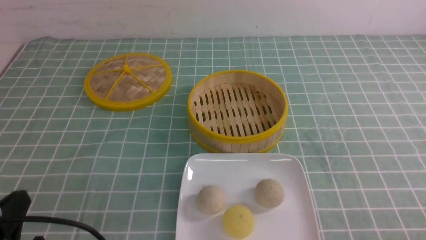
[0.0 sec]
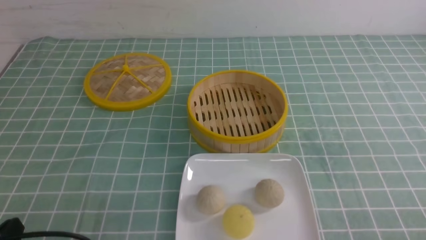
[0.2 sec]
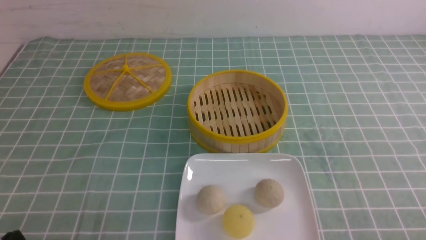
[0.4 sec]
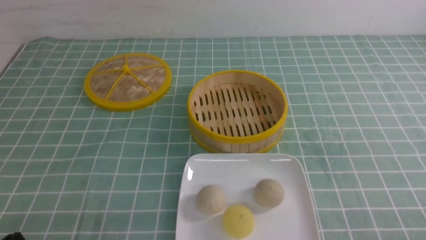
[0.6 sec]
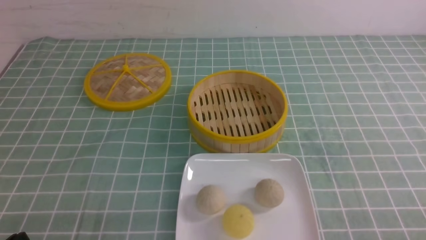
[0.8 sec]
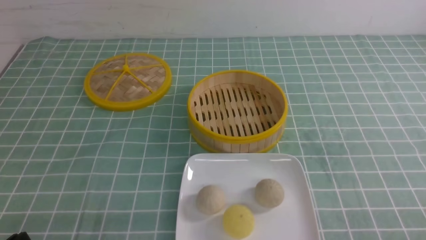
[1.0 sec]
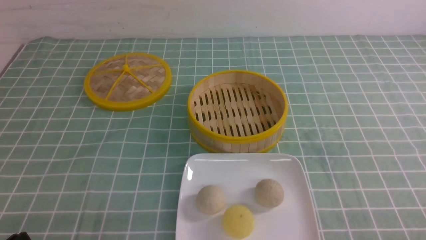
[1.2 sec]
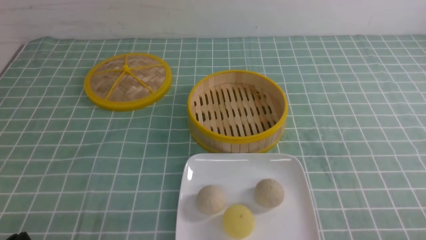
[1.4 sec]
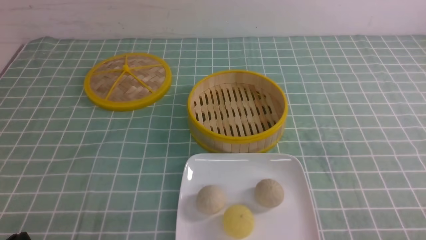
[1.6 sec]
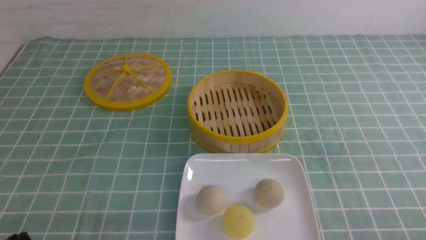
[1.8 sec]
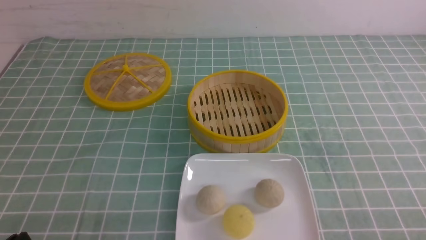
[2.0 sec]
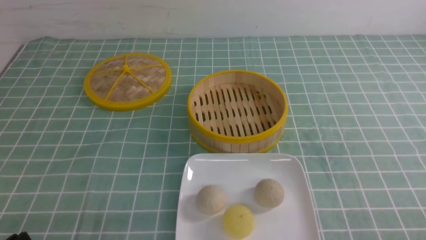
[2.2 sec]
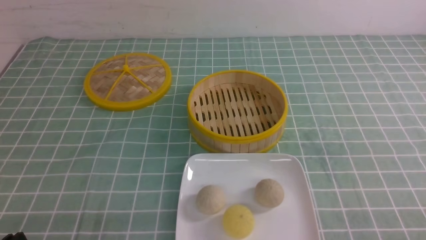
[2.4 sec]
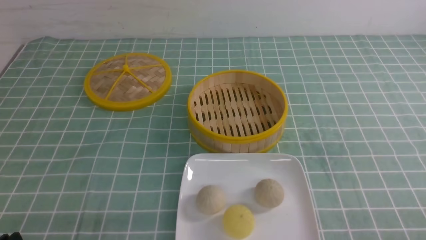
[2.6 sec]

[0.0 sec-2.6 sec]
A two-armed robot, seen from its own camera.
0.0 sec to 1.2 sec: The left gripper travels downward by approximately 5 cm.
1.2 sec to 2.6 sec: Both grippers stay put.
